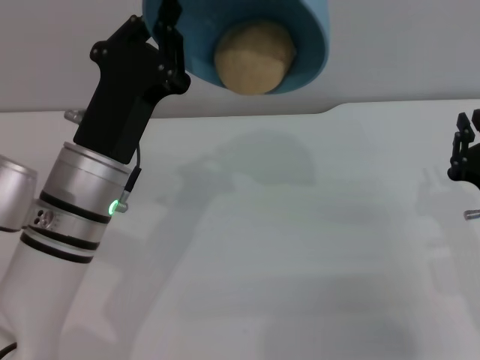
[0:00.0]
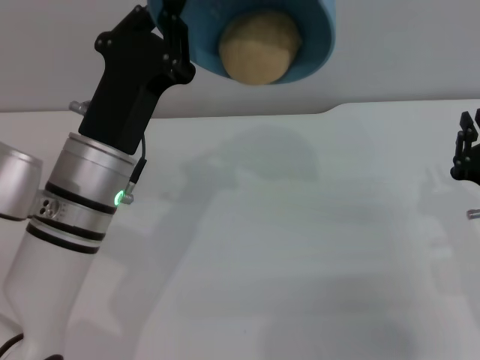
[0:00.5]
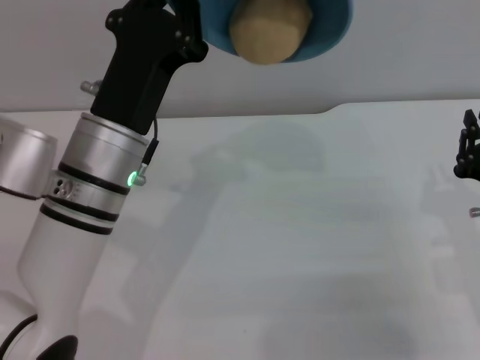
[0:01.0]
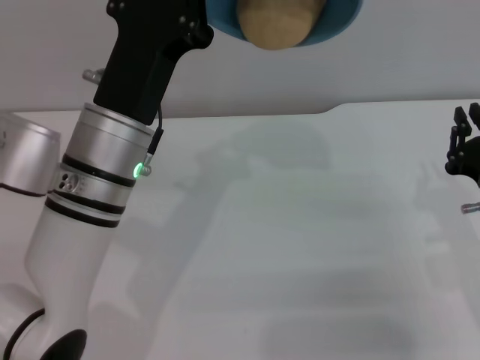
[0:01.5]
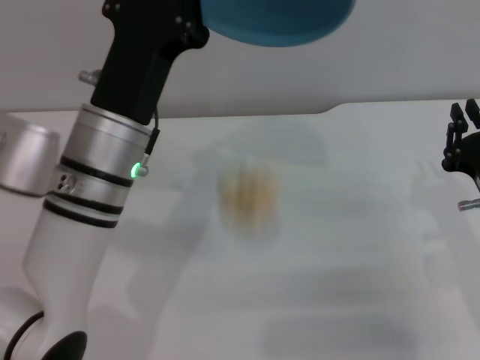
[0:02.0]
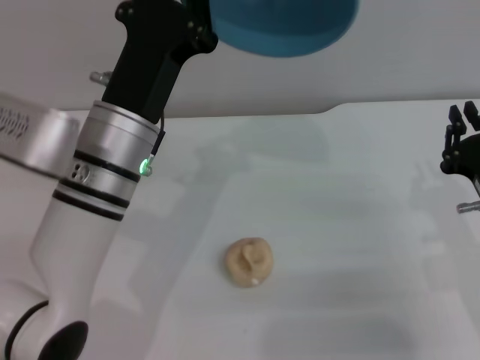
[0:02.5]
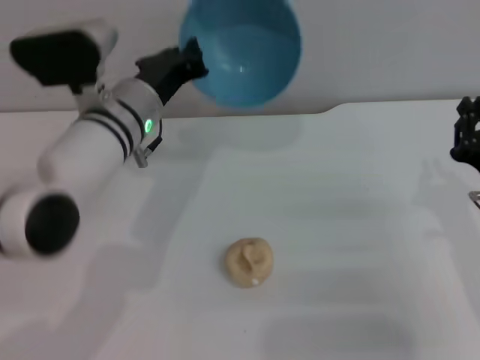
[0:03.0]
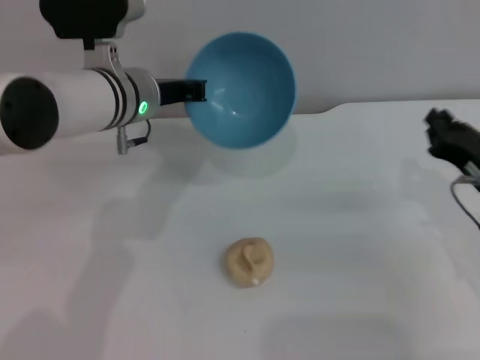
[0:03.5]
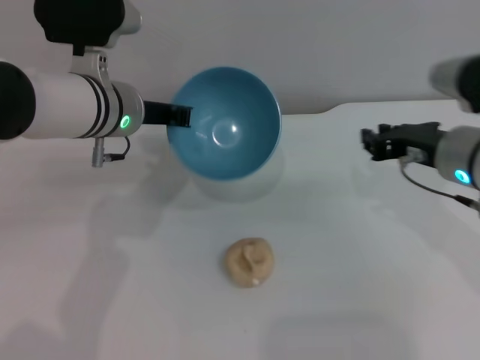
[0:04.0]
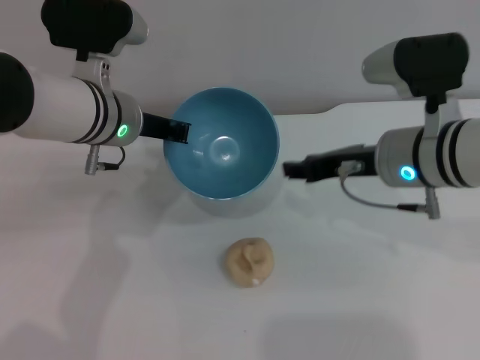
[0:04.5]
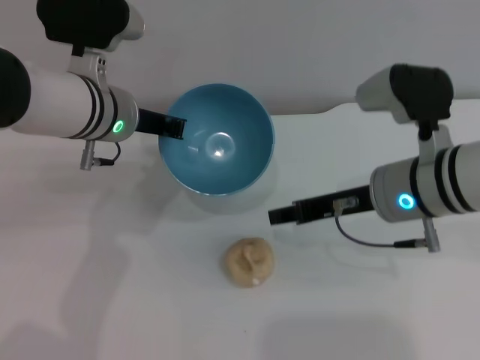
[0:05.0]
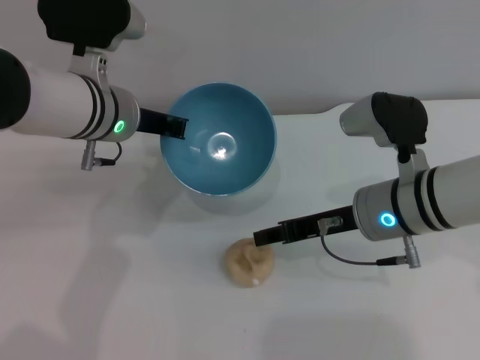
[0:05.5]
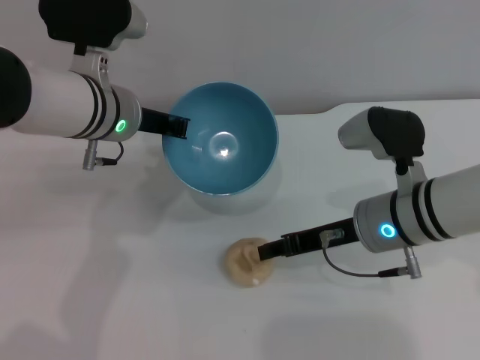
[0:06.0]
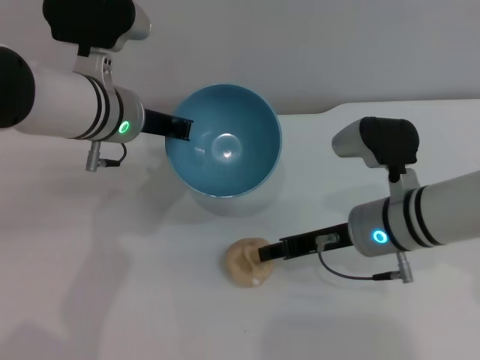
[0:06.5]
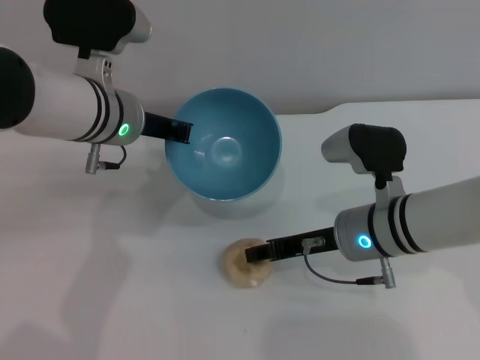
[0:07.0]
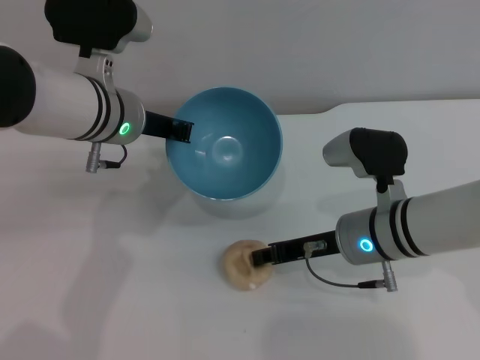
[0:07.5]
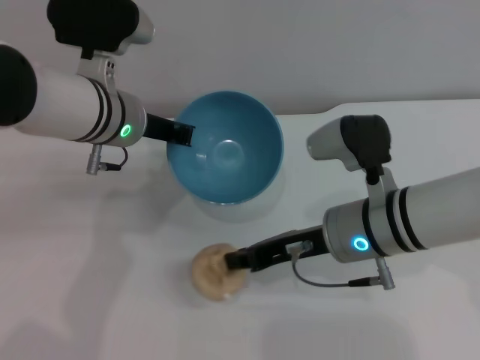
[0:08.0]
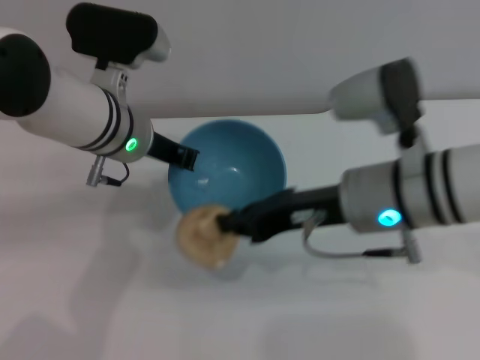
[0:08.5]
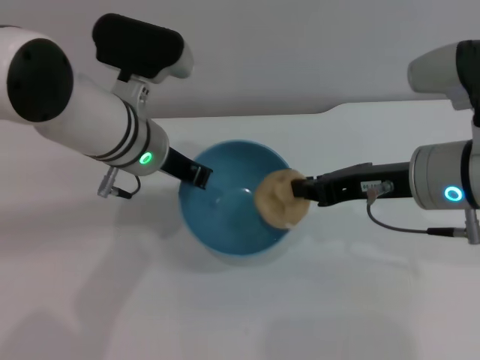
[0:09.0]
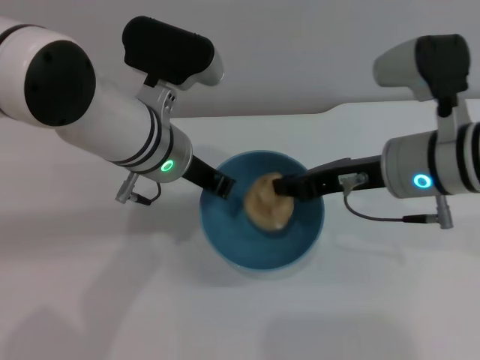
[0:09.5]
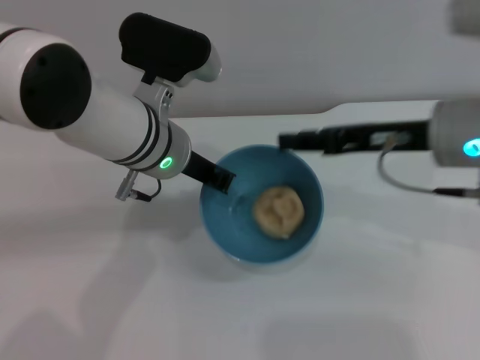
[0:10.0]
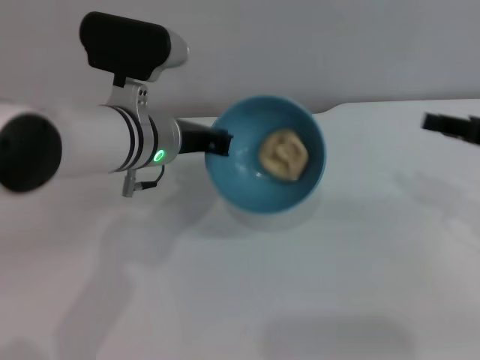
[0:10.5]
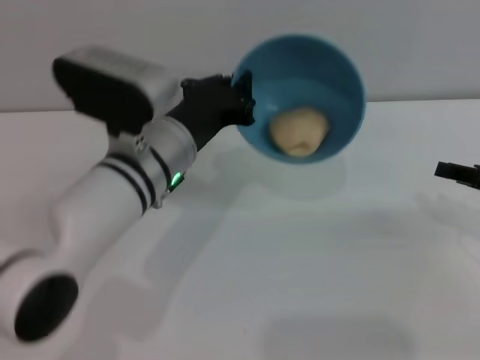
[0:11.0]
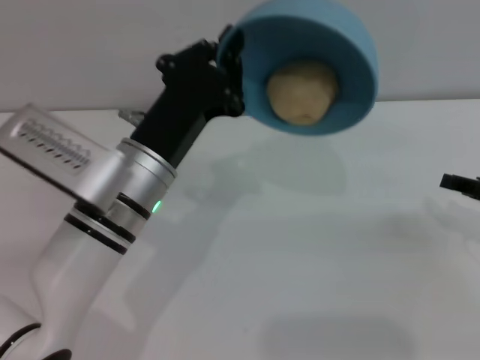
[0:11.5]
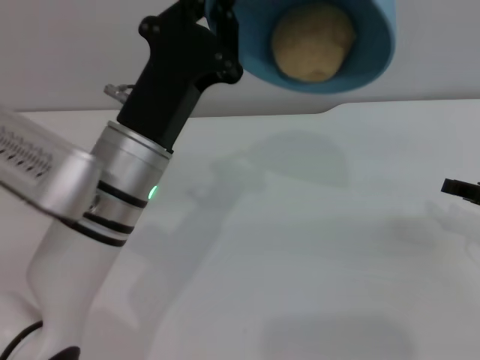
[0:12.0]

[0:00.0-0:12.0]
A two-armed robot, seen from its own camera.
Task of the whole recording: put the egg yolk pastry into the blue bowl and pour it out repeatedly.
Step, 0:00.0 to 0:02.5: Pour the egg yolk pastry out of bowl.
Step, 0:03.0 to 0:08.0: Pick up the egg yolk pastry with the right gripper.
Step, 0:08.5 to 0:11.0: Place the egg yolk pastry into the bowl.
0:00.0 to 0:02.0: The grippers stay close to where they were, moving slightly.
0:02.0 to 0:04.0: The right gripper goes about 10 cm upward and forward, while the left gripper heads forward, covering some 10 cm.
0:04.0 to 0:06.0: The right gripper is displaced to the left by some 5 cm, and opens.
0:06.0 to 0:08.0: The right gripper closes.
0:08.0 to 0:10.0: The right gripper travels upward and to the right by roughly 15 cm, and opens its fingers. The left gripper shifts by some 5 cm.
0:10.0 to 0:12.0: The left gripper shifts approximately 10 cm backward, while the right gripper shifts approximately 15 cm to the right and downward.

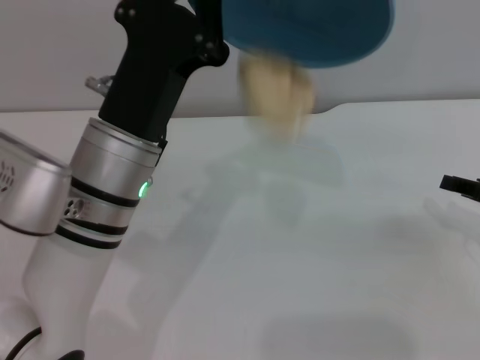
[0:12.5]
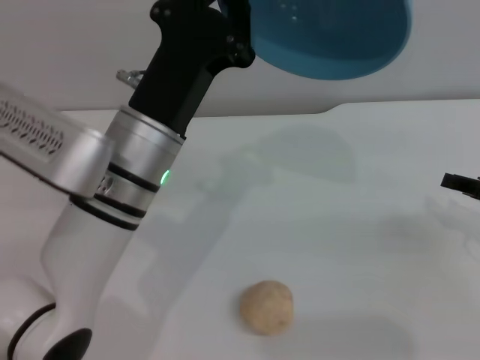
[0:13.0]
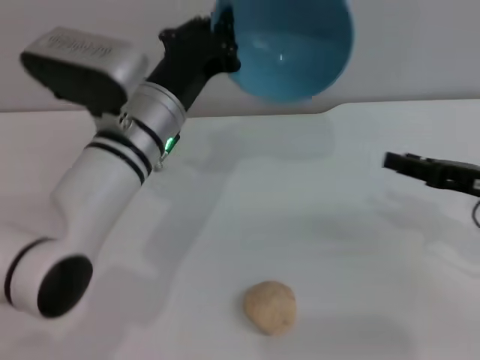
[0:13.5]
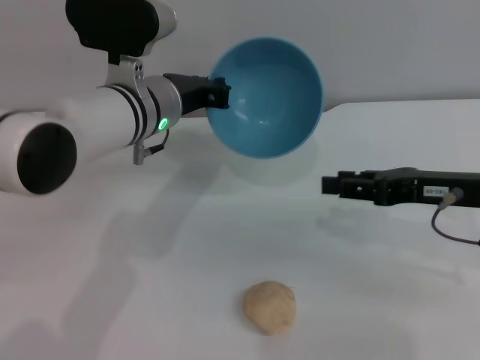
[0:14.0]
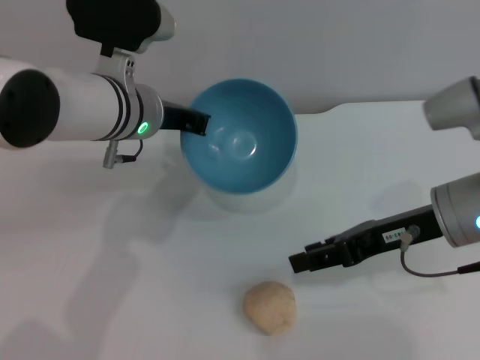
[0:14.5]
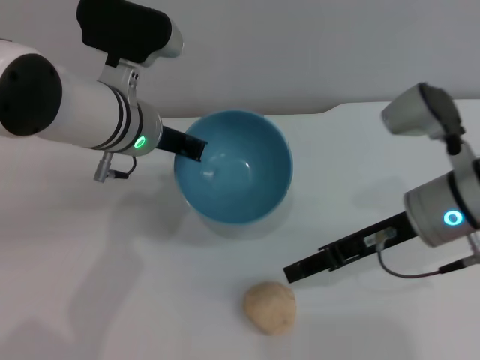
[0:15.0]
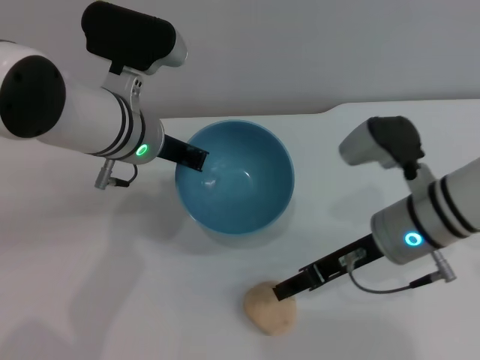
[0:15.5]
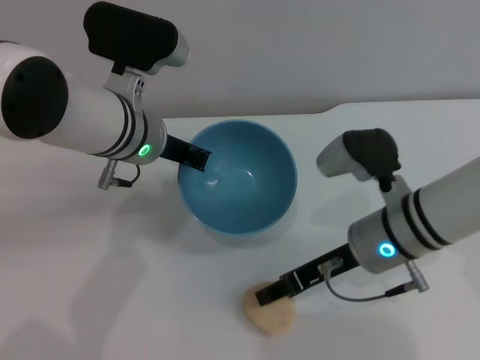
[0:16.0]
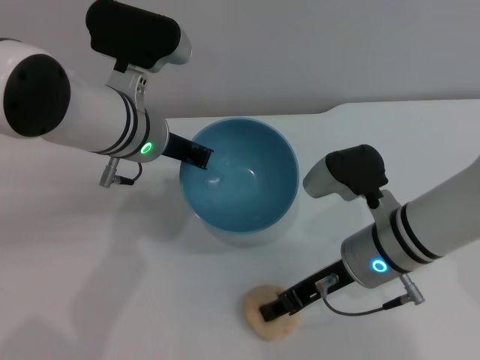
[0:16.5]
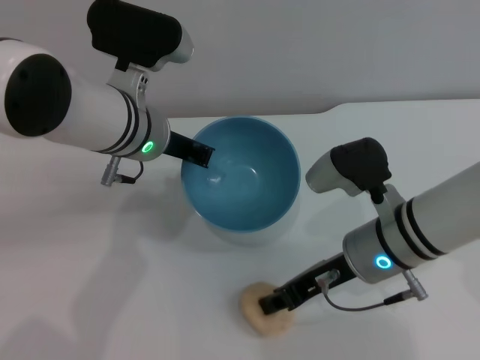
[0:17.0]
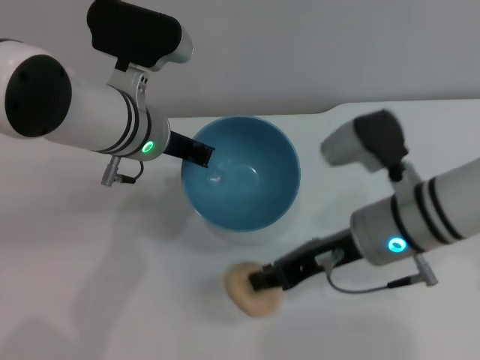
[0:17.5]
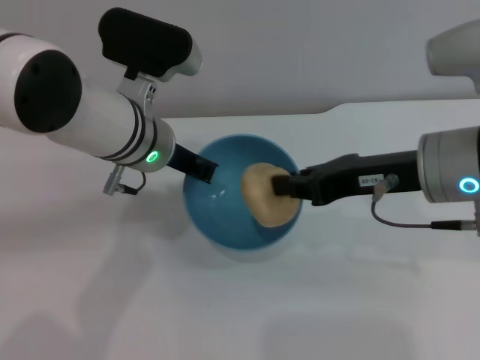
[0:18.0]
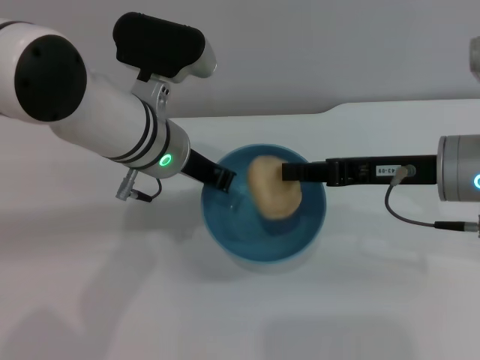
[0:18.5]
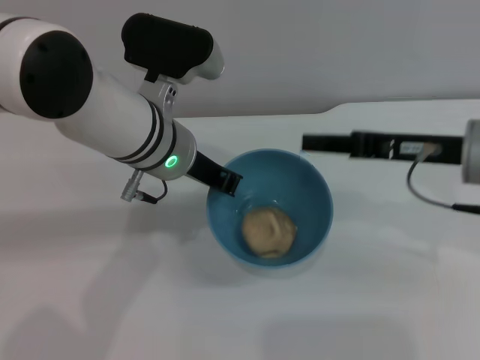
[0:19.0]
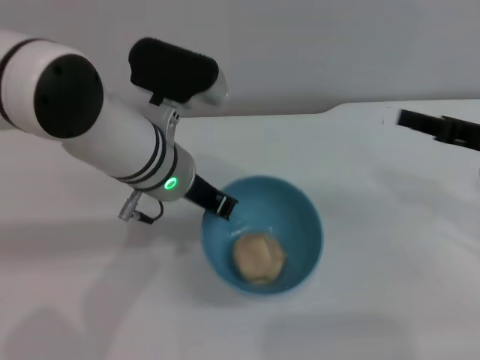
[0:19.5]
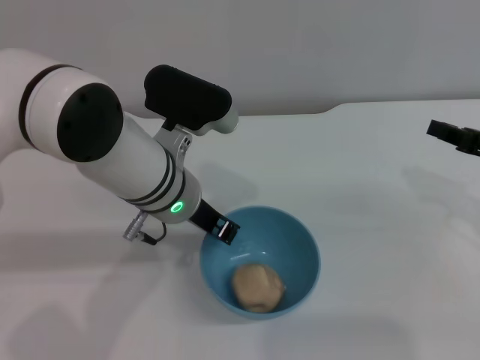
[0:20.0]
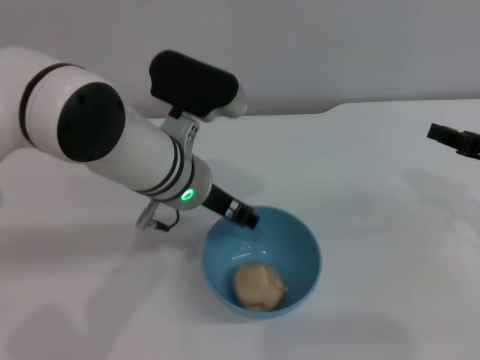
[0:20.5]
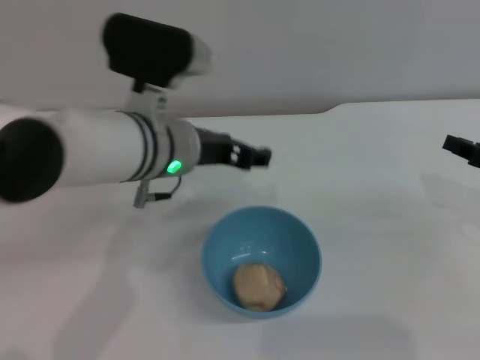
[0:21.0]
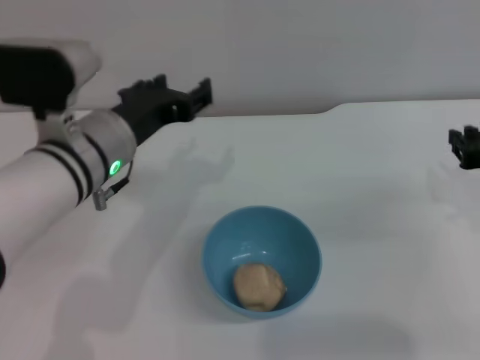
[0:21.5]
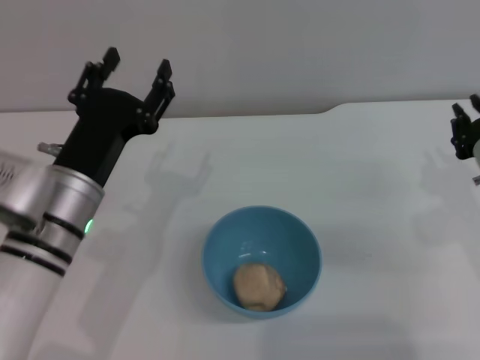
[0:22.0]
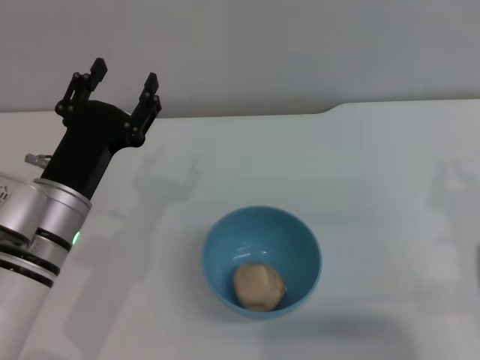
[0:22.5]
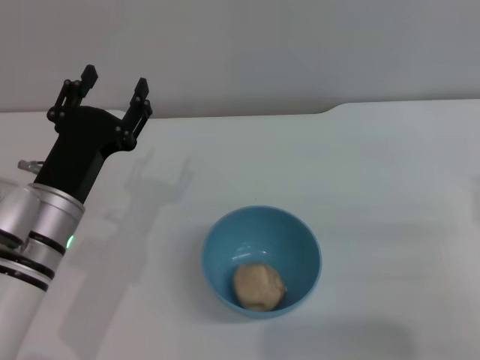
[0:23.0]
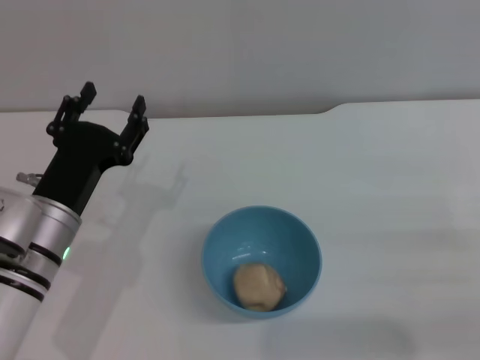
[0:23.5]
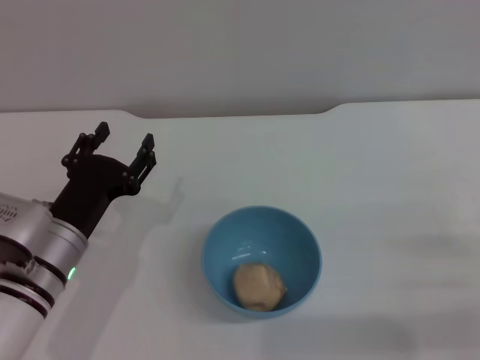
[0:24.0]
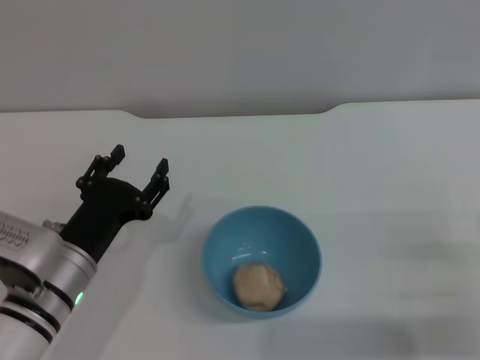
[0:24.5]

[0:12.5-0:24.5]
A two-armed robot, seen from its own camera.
Task of the whole recording: put the egg yolk pastry into the blue bowl and pour it out repeatedly.
Step, 0:13.5 to 0:17.5: Pick up the egg yolk pastry with the right gripper.
Step, 0:18.0 to 0:19.0: Place the egg yolk pastry into the bowl.
Step, 0:19.5 to 0:20.5: Place the bowl on the table.
0:12.5 to 0:14.5: The left gripper is displaced forward by some 10 cm. The right gripper heads to the left, covering roughly 15 cm.
0:14.5 to 0:16.5: The right gripper is displaced downward and to the left by roughly 10 cm.
0:16.5 to 0:18.5: The right gripper is displaced upward and to the right by some 10 cm, and closes up.
0:18.5 to 0:20.5: The right gripper is displaced to the right by approximately 10 cm; the left gripper opens.
0:20.5 to 0:22.5: The left gripper moves to the left, backward and downward, about 15 cm, and opens its fingers; the right gripper travels backward and to the left by some 10 cm.
0:22.5 to 0:24.5: The left gripper ends up some 5 cm from where it was; the right gripper travels to the right and downward by some 10 cm, and opens its fingers.

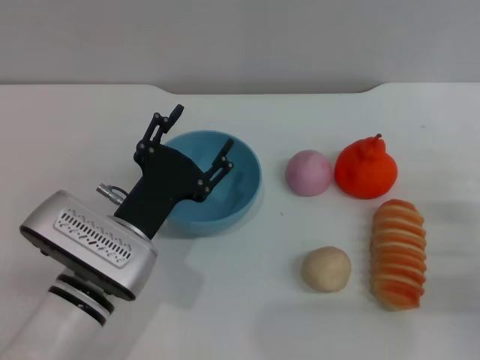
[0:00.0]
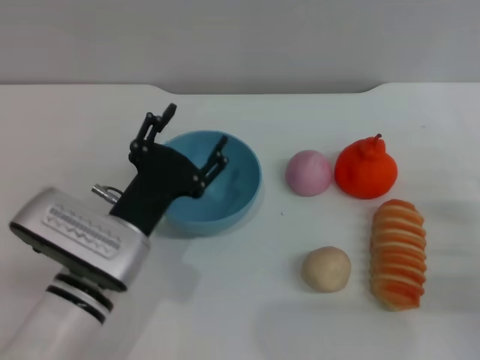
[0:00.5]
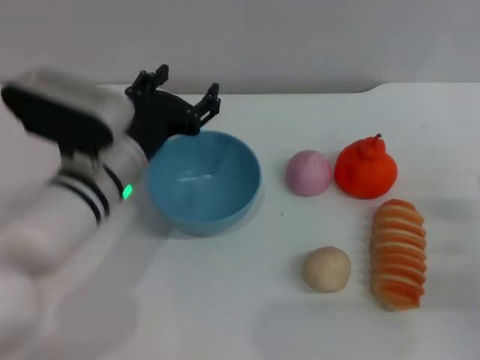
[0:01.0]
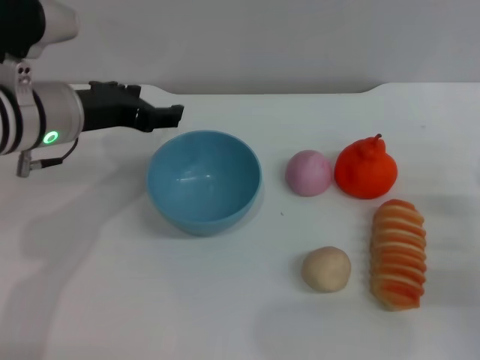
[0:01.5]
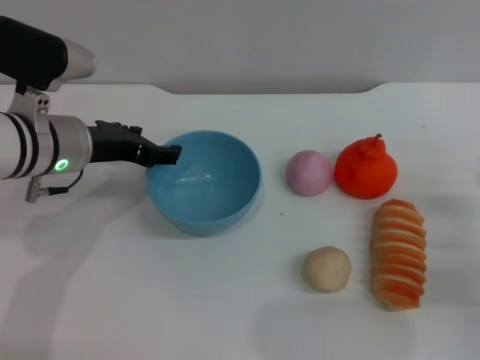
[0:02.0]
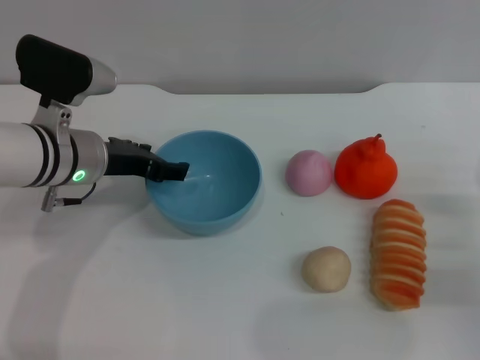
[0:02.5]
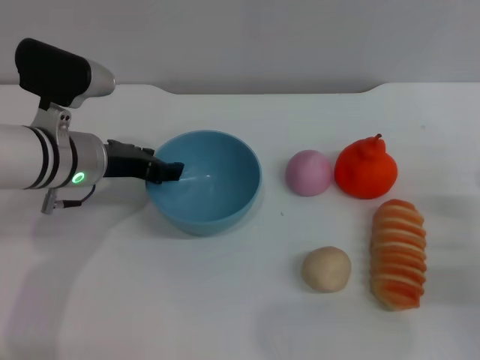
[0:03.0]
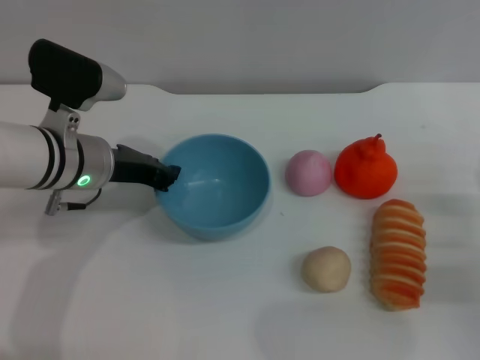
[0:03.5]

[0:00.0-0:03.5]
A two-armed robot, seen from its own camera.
Task of the whole recording: put the orange into the blue bowl and pour it out repeatedly.
0:00.0 to 0:02.0: The left gripper is displaced forward, upward and to the left by some 15 cm.
0:02.0 to 0:03.5: The left gripper closes its fingers.
